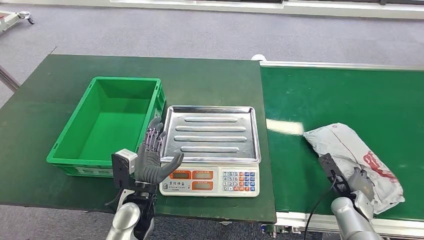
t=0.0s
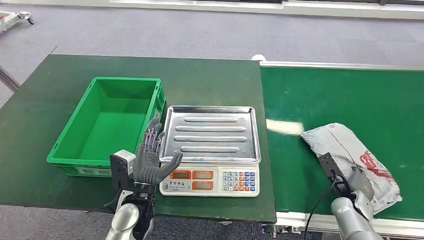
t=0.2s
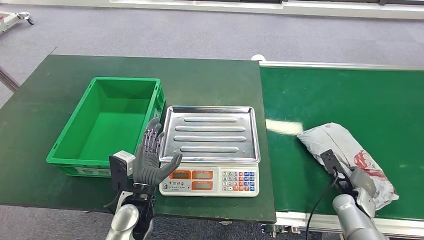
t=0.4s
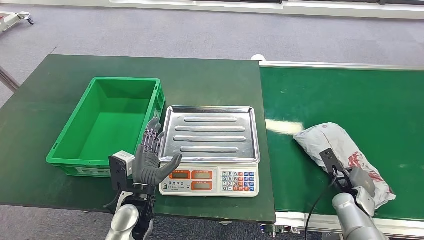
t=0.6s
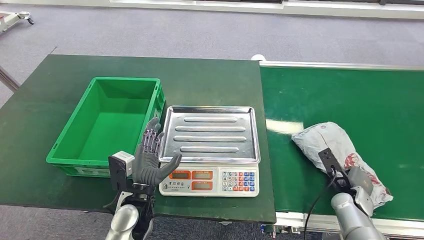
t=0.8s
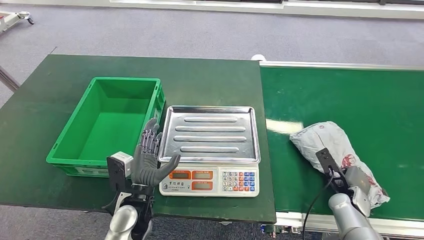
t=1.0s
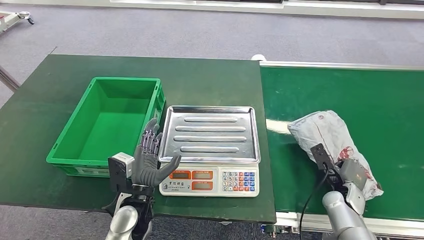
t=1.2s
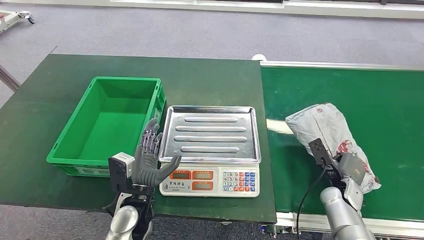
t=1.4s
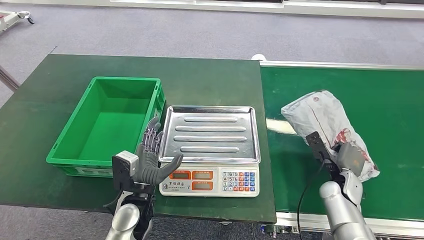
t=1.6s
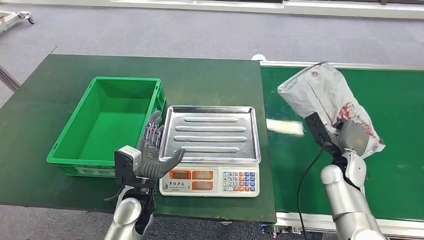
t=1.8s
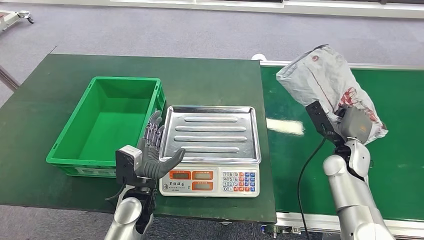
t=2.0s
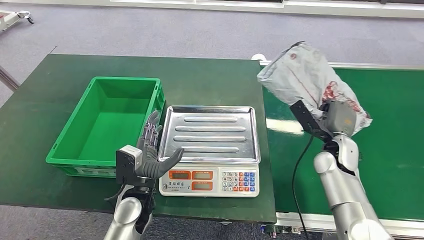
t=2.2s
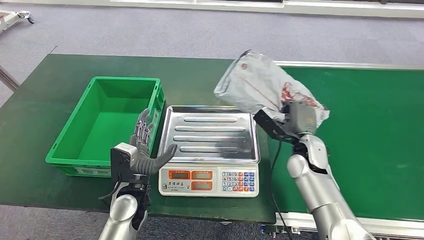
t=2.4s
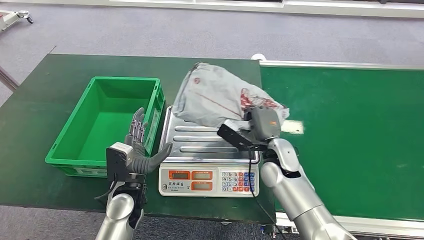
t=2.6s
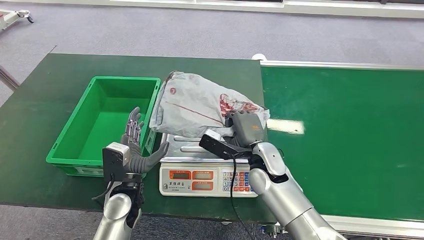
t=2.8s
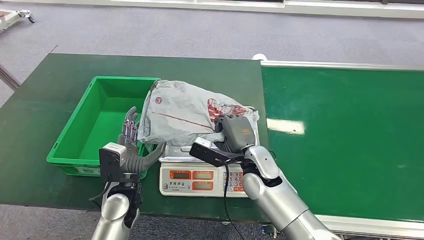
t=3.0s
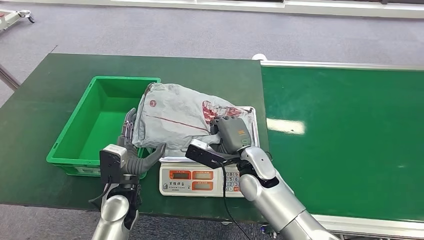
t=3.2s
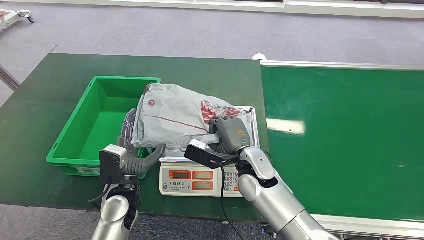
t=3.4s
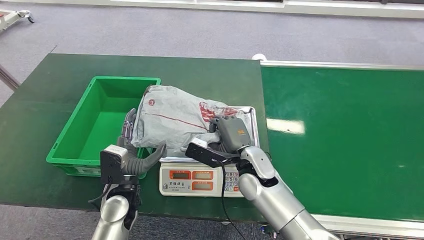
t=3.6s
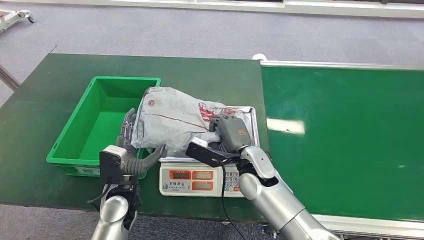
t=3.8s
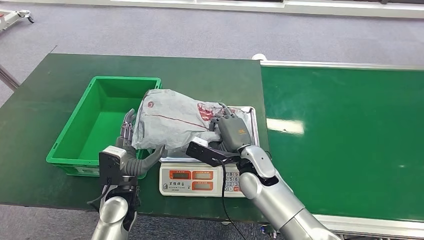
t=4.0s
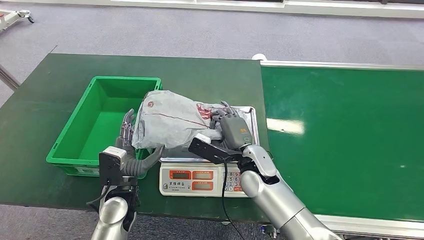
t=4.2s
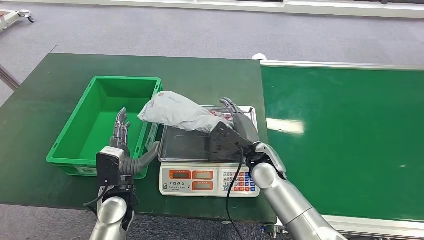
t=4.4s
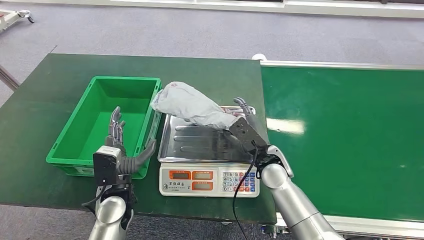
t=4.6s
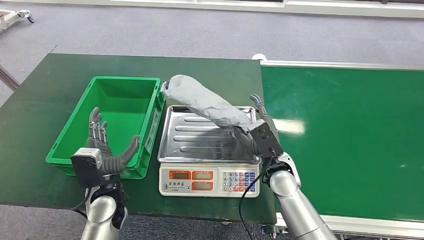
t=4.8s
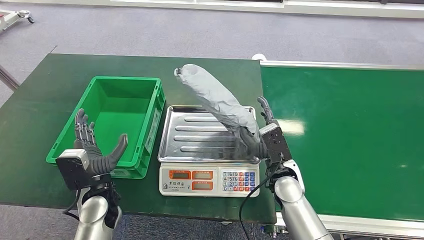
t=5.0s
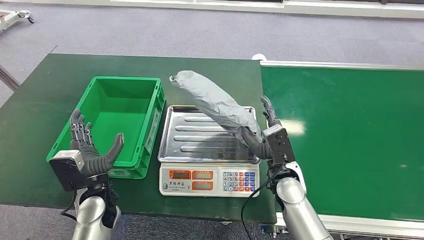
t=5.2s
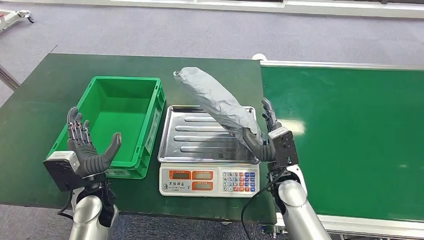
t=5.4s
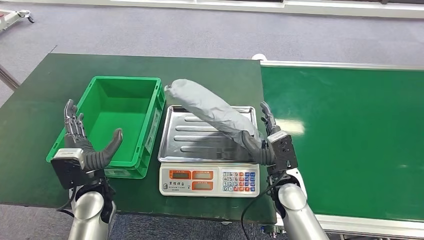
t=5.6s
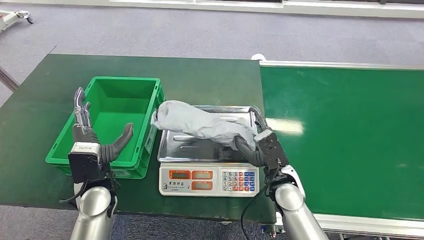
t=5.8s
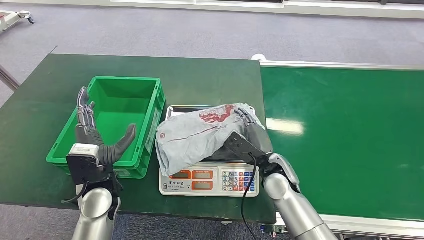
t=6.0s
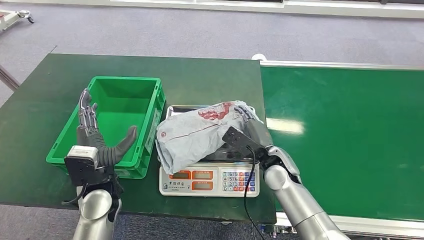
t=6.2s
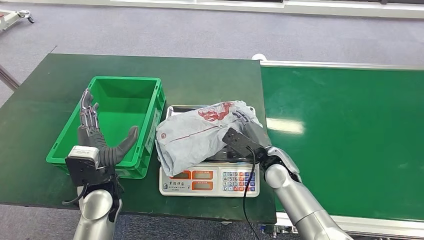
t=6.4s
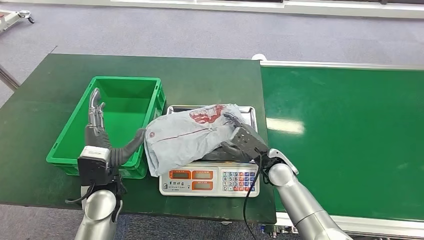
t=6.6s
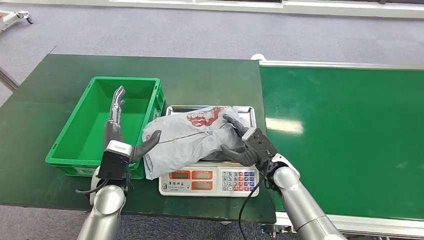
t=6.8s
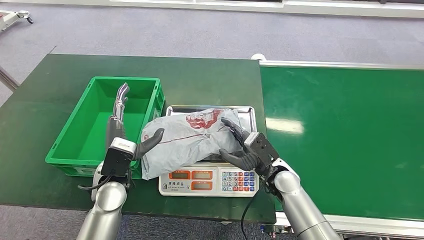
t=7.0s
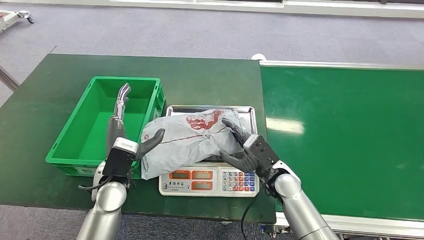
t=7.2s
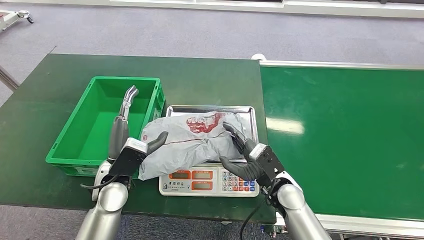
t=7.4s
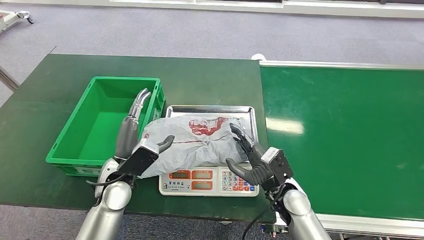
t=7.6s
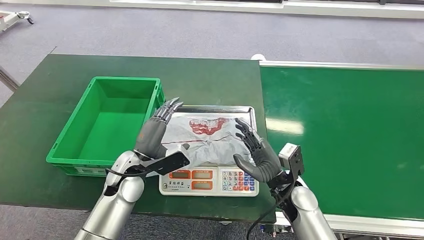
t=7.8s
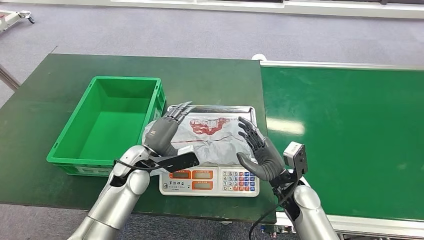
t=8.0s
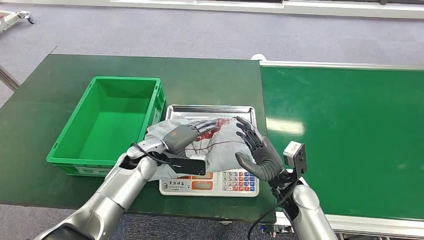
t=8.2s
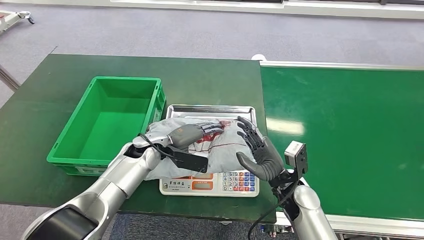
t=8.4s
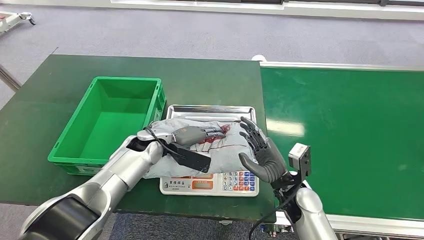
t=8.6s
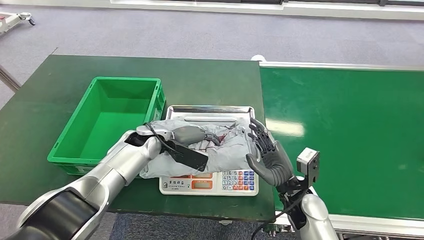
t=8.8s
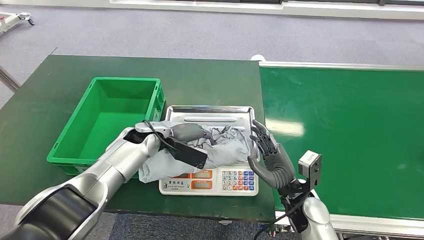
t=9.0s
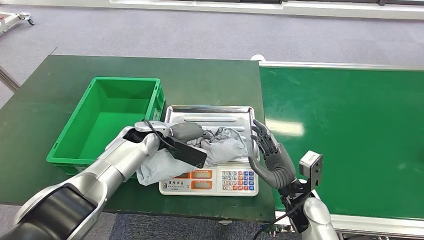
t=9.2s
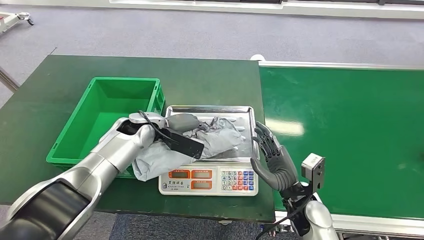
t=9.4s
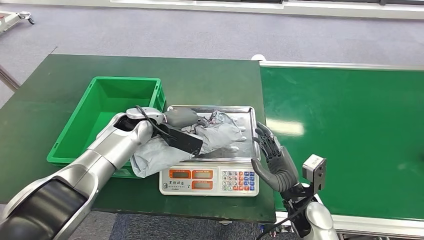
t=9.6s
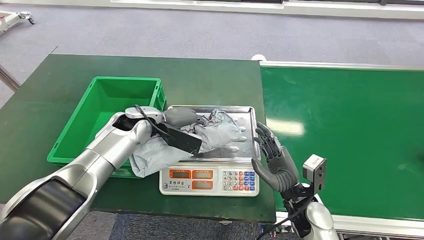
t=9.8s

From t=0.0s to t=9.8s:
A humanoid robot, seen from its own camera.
Step, from t=0.0s to t=2.2s: Pick up the package from the conveyor belt.
Step, from t=2.4s to t=7.8s: Place the package onto the inbound machine.
From t=0.0s to t=1.4s: There are only small adjustments of the hands.
From t=2.8s to t=4.2s: There are only small adjustments of the hands.
From t=4.2s to t=5.6s: The right hand shifts roughly 10 cm to the right. The left hand travels to the left by roughly 5 cm.
From t=5.6s to t=7.0s: The left hand shifts by some 5 cm.
From t=7.0s to t=8.4s: The left hand is displaced forward by about 10 cm.
From t=8.4s to t=9.8s: The left hand is displaced upward by approximately 5 cm.

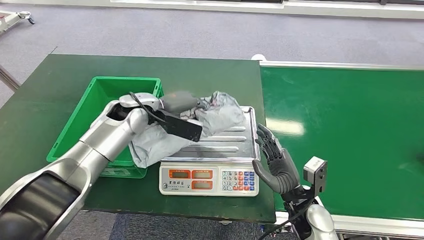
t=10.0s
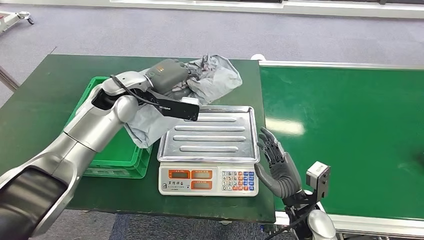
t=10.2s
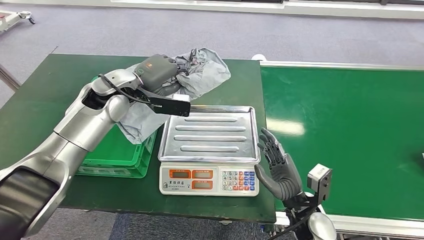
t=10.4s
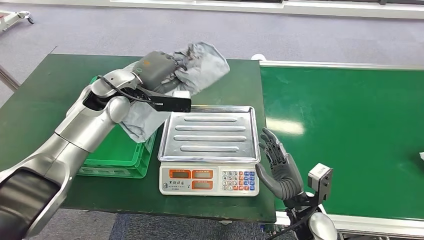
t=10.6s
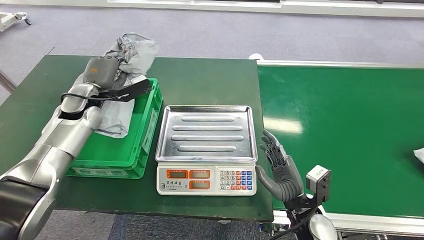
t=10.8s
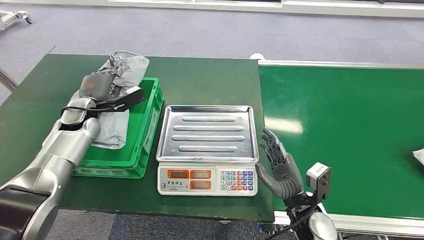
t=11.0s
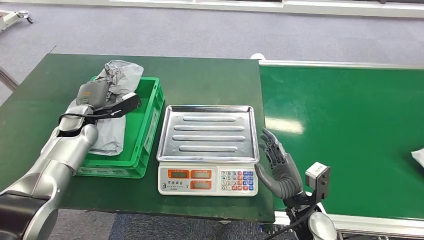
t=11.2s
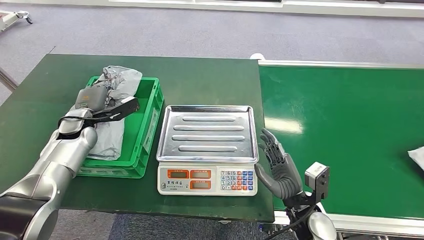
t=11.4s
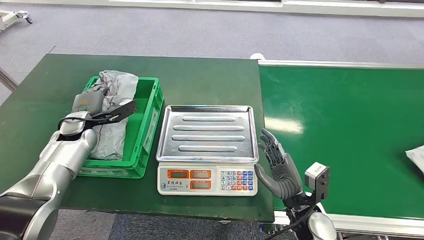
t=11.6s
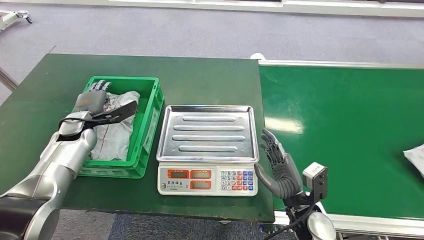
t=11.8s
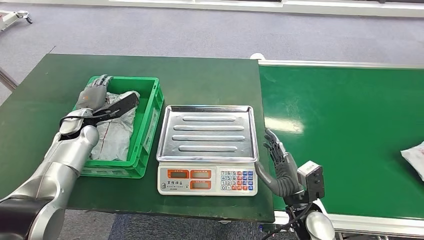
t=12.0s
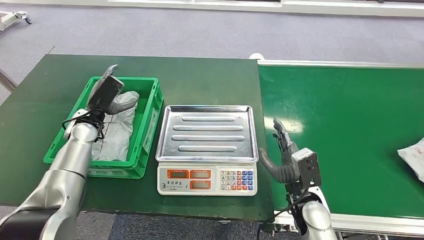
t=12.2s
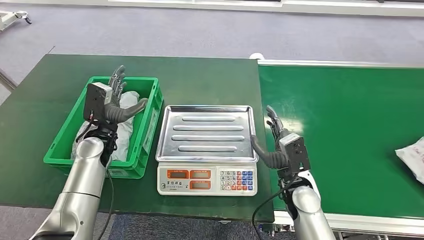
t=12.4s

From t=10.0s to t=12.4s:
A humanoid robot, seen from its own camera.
Step, from t=10.8s to t=12.2s: Place the package into the parcel locker.
